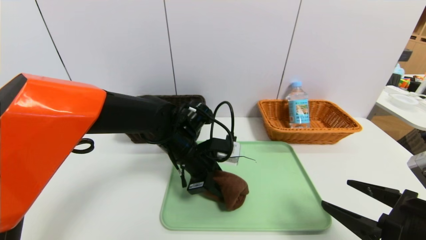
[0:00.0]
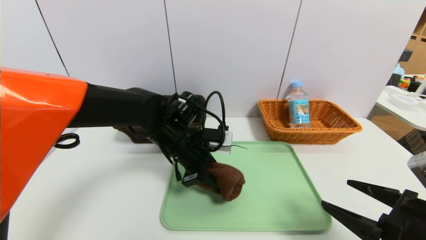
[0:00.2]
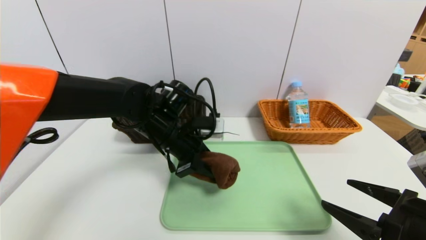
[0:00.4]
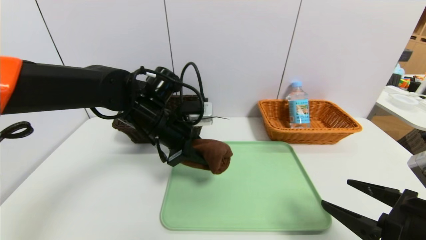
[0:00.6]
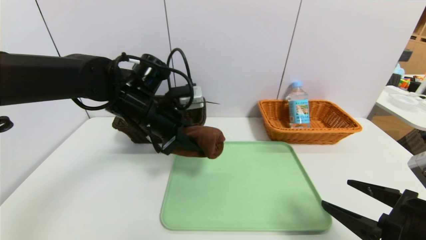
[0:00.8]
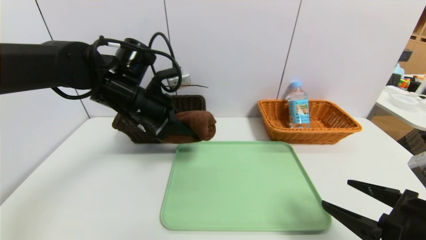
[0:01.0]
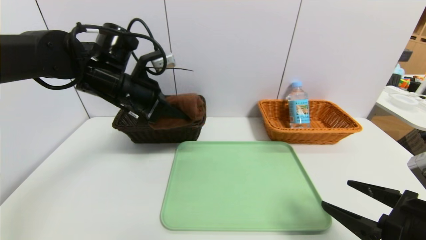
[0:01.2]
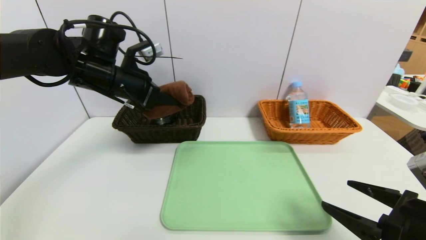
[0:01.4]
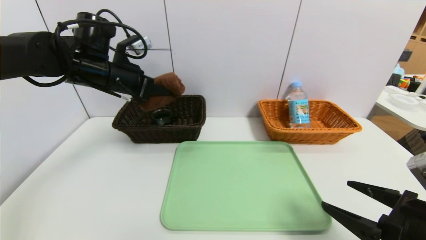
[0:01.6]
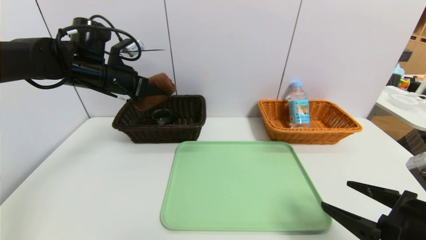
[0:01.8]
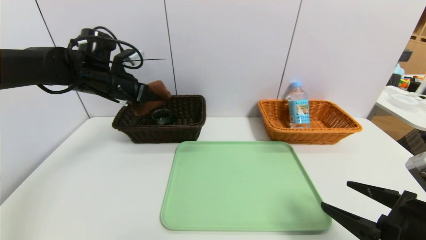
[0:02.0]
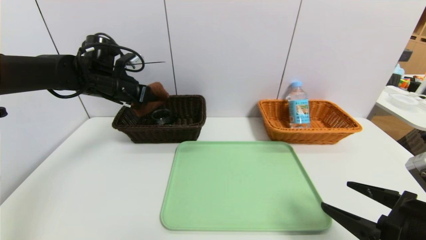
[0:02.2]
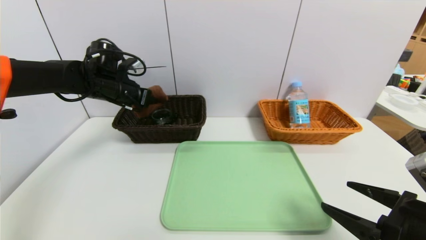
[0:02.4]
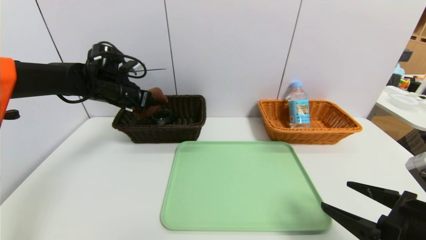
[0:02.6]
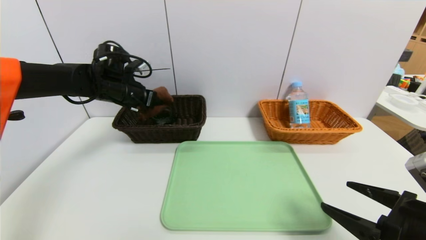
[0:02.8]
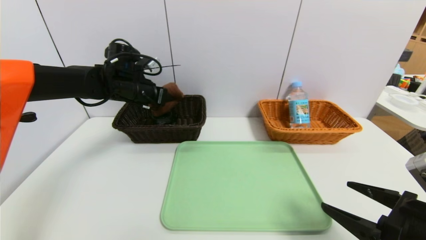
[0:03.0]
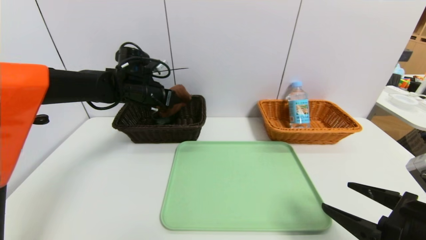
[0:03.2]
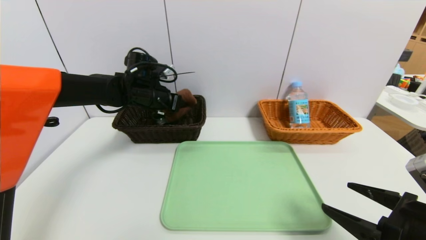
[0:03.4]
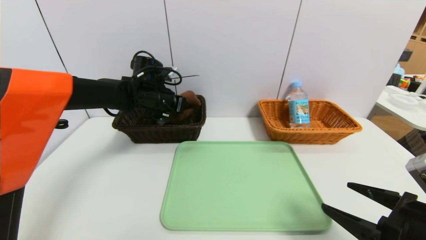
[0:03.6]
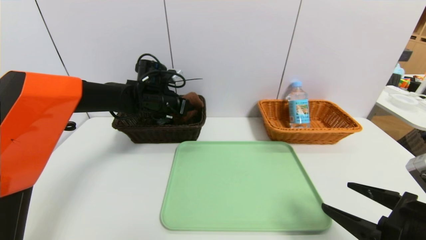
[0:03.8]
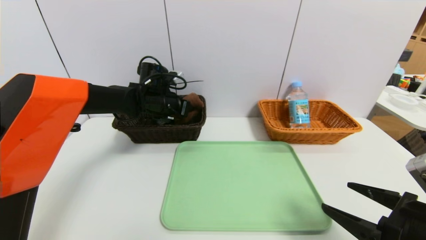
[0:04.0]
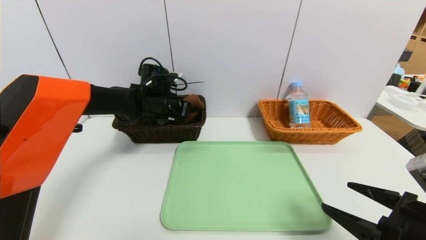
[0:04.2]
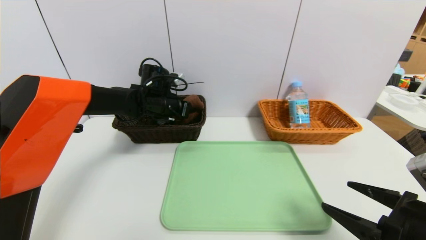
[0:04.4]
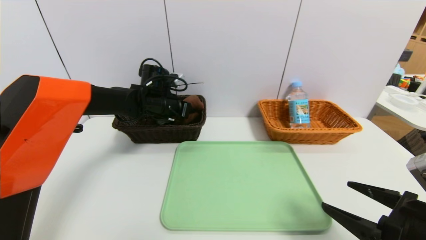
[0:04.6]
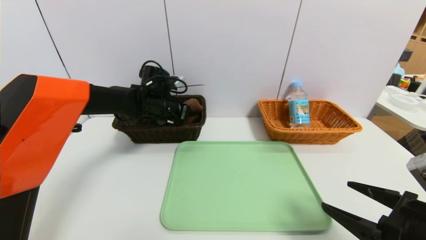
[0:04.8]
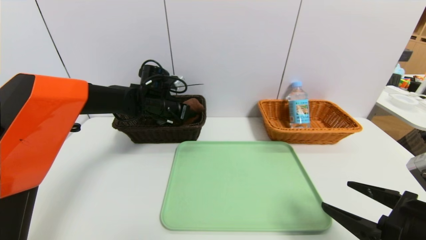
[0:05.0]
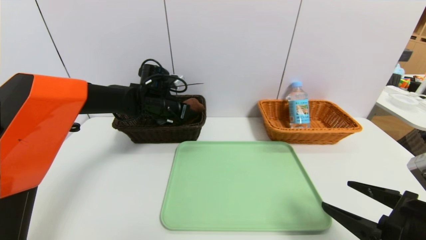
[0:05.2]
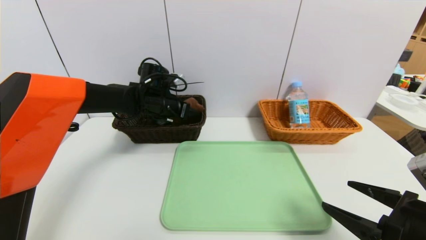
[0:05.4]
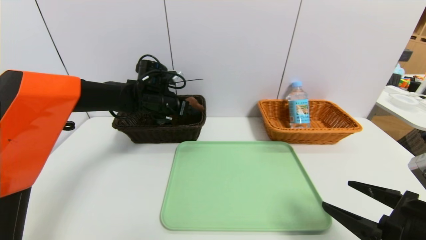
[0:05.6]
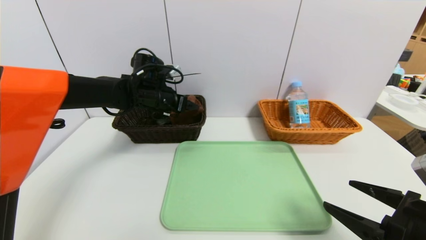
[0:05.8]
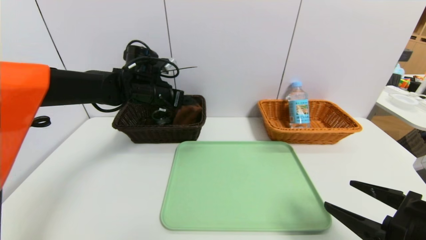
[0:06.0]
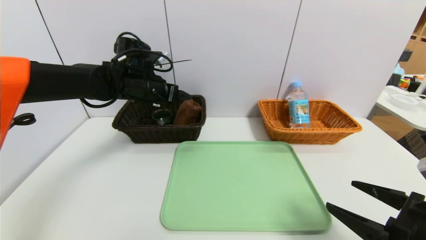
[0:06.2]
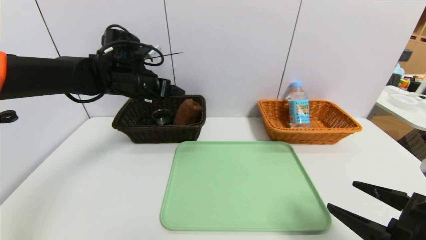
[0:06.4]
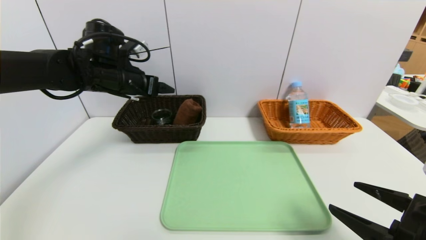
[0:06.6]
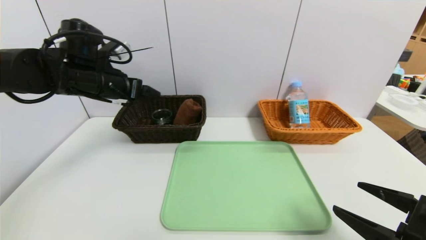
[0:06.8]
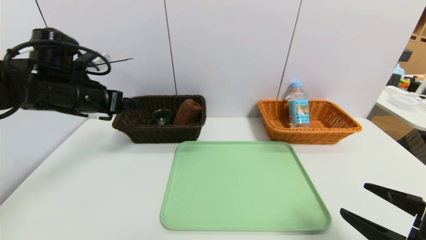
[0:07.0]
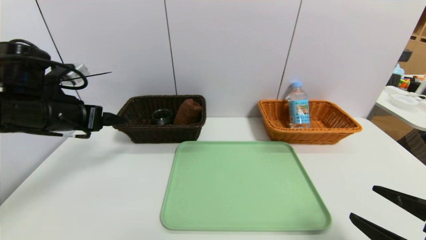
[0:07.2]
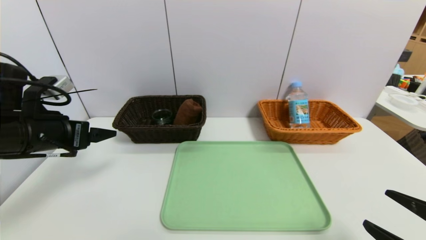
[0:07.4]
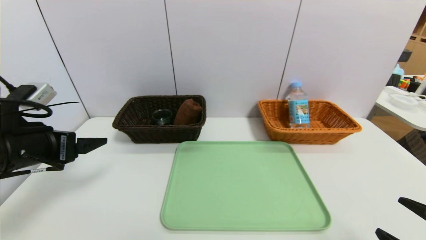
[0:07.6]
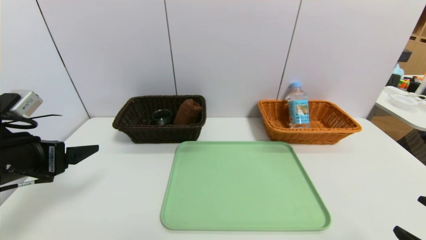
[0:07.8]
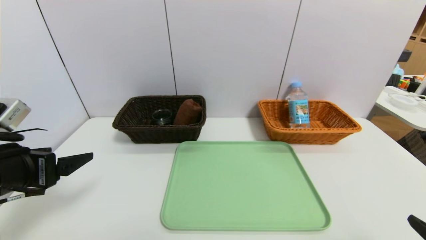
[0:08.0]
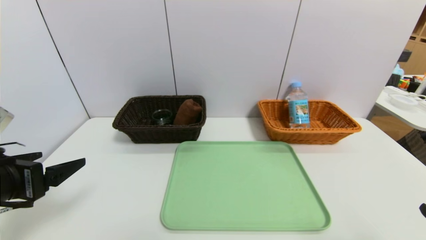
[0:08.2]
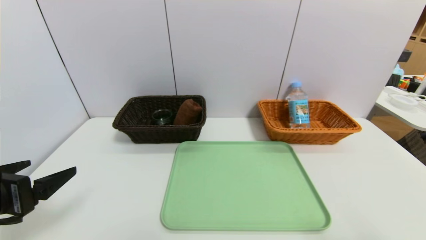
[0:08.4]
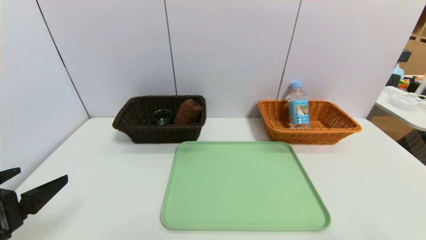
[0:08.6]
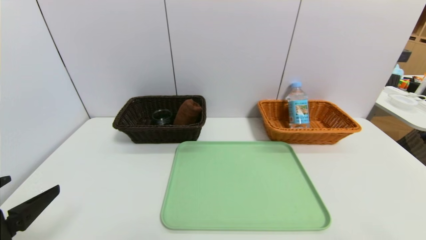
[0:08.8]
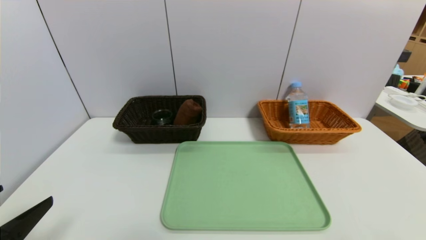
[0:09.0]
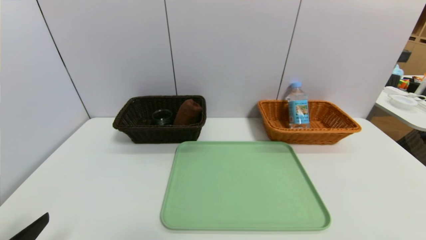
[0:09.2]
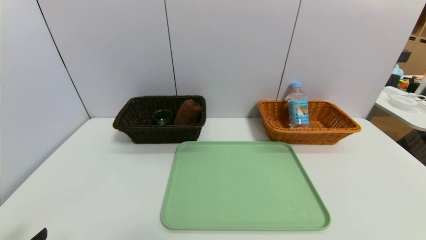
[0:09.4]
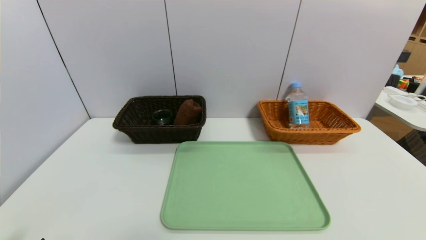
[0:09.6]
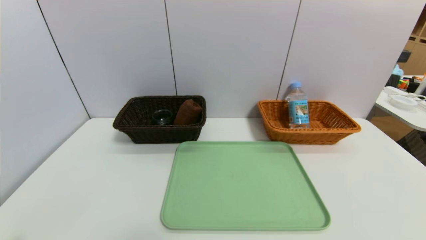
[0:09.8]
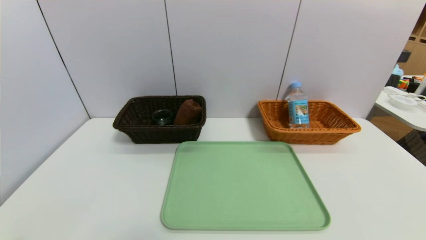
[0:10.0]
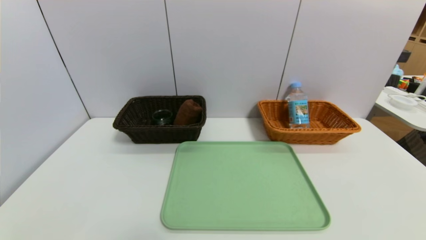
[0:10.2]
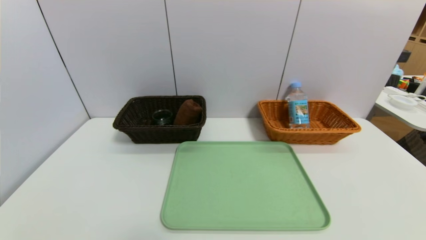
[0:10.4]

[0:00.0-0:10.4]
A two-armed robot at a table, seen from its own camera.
Task of the whole recording: place the food in the right basket with the right gripper, and place the non food items in the left basket with the left gripper.
Step, 0:00.0 to 0:06.4: Grasp the brown plate and put it in the left basket.
0:00.0 to 0:01.4: The left gripper moves to the left and upward, about 20 cm.
0:01.4 to 0:03.0: The left gripper heads forward and downward, covering some 10 cm.
0:03.0 to 0:04.4: The left gripper shifts approximately 5 cm to the right.
0:04.4 to 0:06.0: The left gripper ends up some 5 cm from where it was, and opens its fingers.
0:06.0 to 0:07.4: The right gripper changes place by roughly 5 cm, while the left gripper moves backward and to the left, roughly 25 cm.
0:07.4 to 0:09.0: The left gripper shifts approximately 20 cm backward. Meanwhile the right gripper moves backward, approximately 5 cm.
0:09.0 to 0:10.4: The left gripper heads downward and backward, covering some 10 cm.

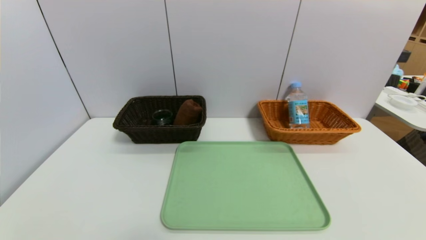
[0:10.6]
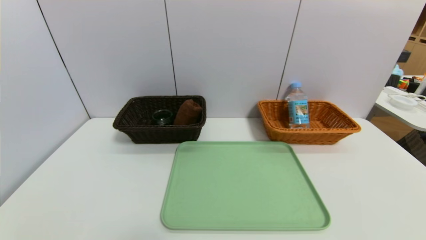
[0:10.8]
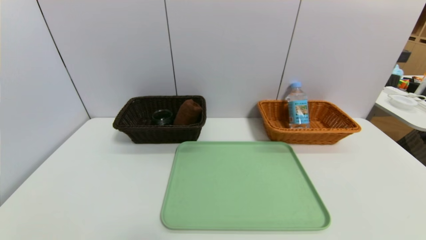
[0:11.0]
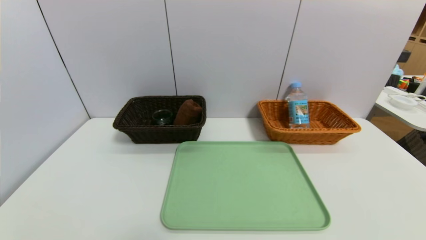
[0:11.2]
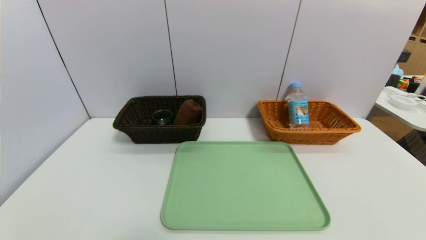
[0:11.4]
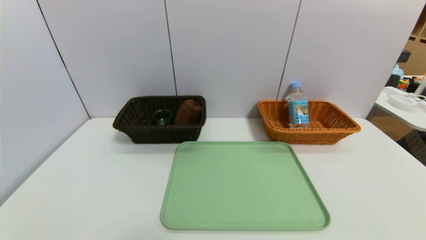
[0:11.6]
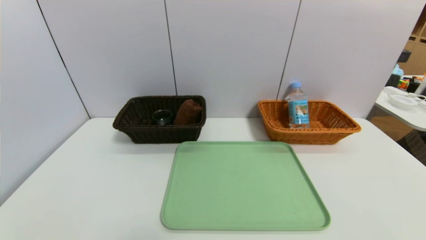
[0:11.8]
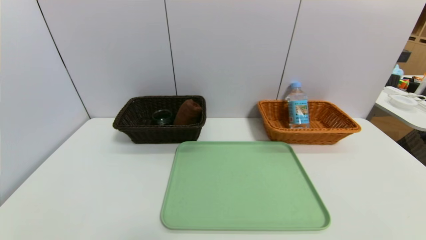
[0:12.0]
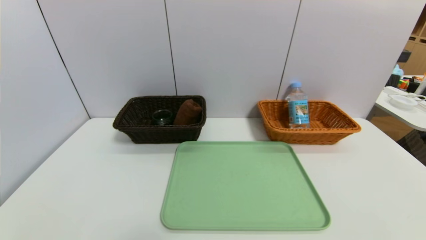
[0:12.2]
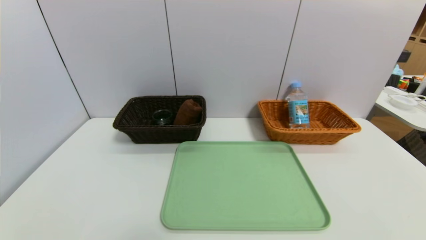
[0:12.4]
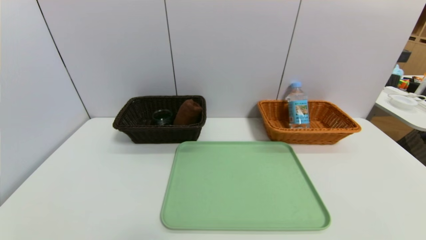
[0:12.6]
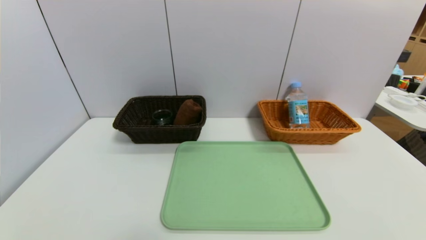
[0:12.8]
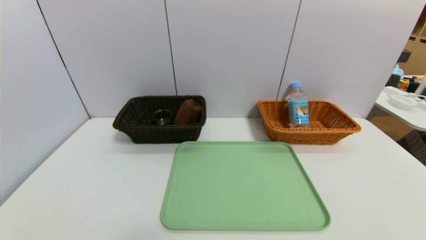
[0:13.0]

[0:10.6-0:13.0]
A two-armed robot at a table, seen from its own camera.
Task of the whole recording: place the food in the right basket with the right gripper, and place the non food items in the left basket with the left gripper.
0:11.8 to 0:13.0: The two grippers keep their place.

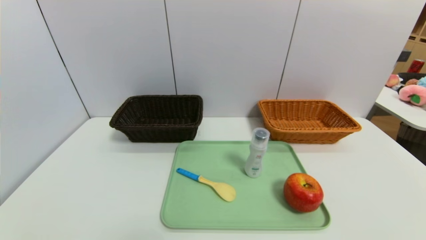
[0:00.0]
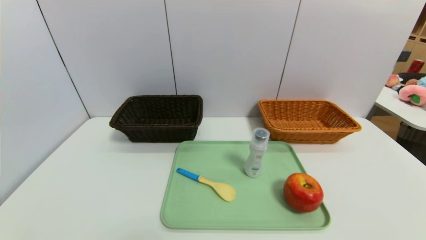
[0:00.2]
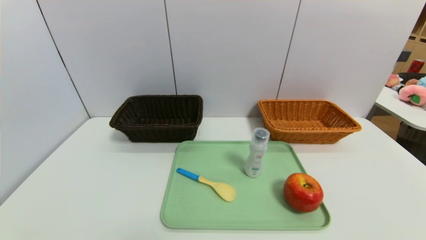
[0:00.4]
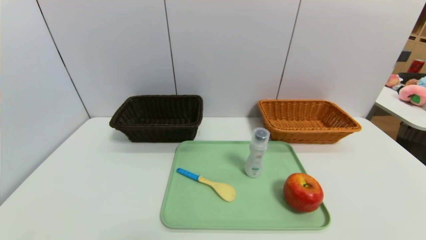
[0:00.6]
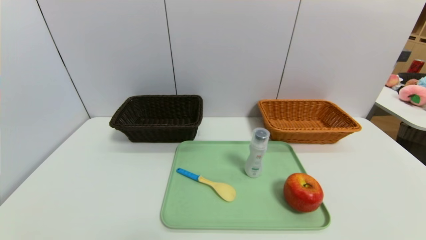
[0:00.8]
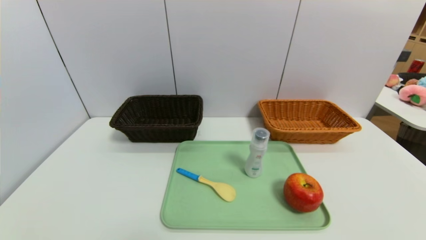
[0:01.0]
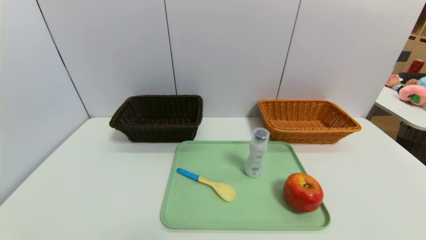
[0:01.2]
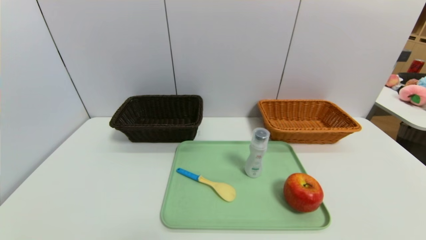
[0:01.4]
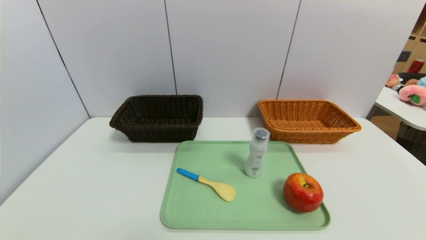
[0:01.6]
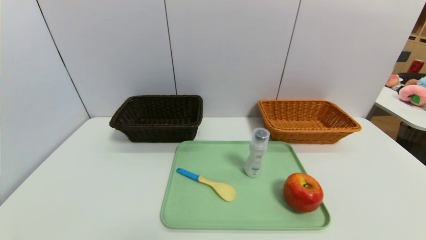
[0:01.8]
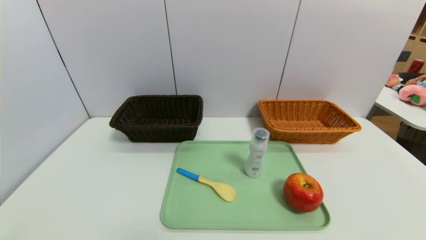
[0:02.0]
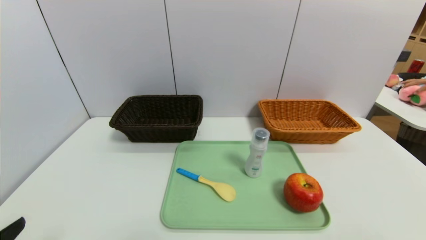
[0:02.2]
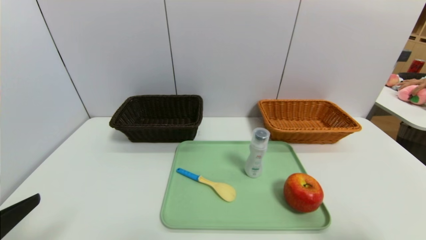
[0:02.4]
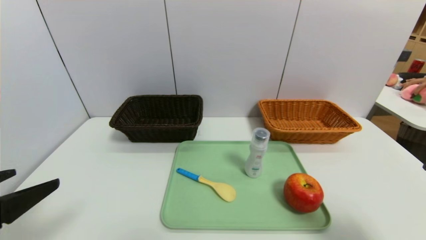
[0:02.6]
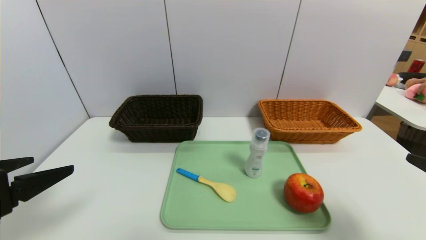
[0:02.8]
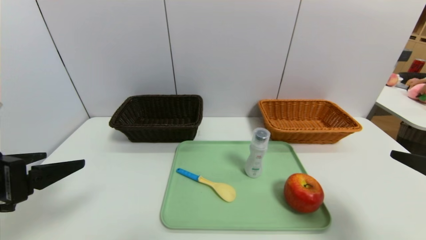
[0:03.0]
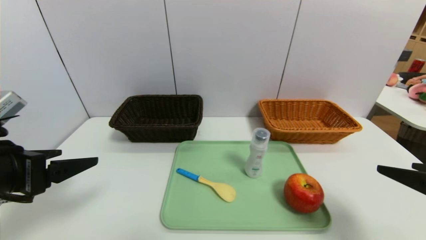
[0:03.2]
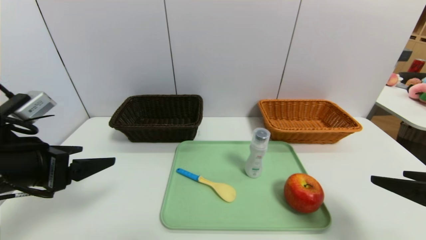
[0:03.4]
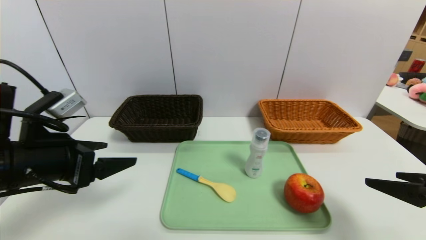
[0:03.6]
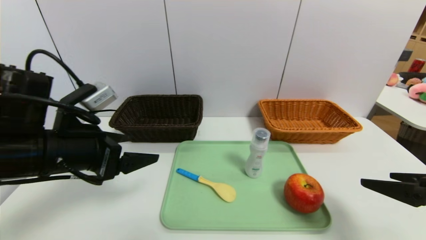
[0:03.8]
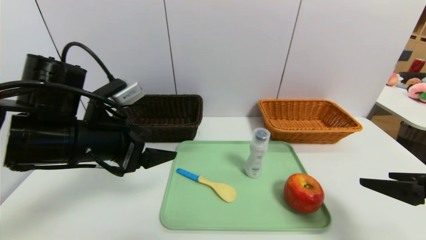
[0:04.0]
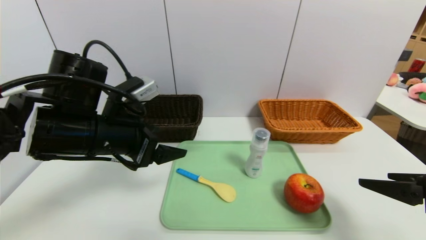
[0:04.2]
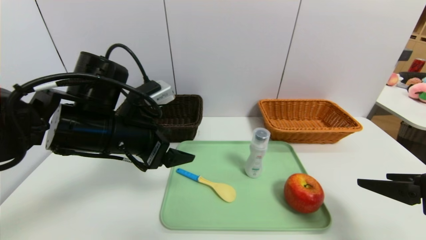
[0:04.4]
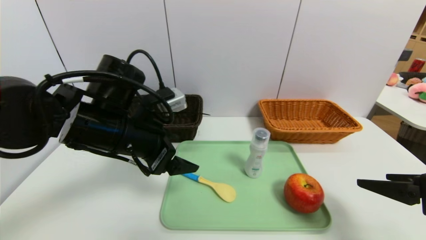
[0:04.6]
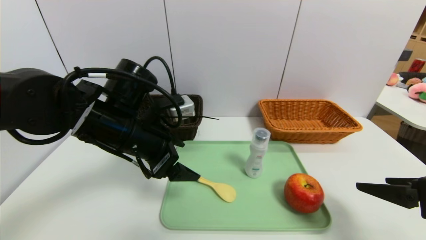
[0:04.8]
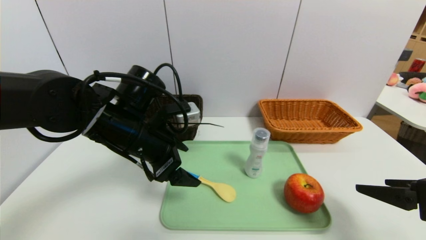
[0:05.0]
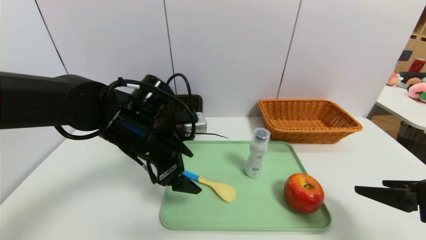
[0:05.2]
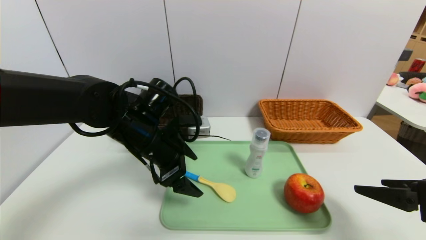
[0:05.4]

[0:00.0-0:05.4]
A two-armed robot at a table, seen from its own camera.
Task of the whole recording: place the food in the right basket with the right gripper, and place the non food items in the left basket with the left gripper.
0:01.4 to 0:02.8: The two grippers go some 20 cm upward and forward.
0:02.8 to 0:04.0: The left gripper moves forward and to the right, about 15 cm.
0:04.0 to 0:05.4: The left gripper is displaced to the right and forward by roughly 10 cm.
